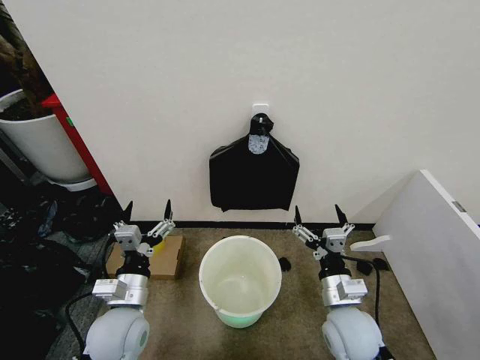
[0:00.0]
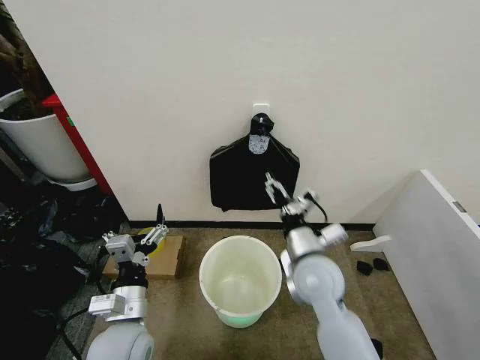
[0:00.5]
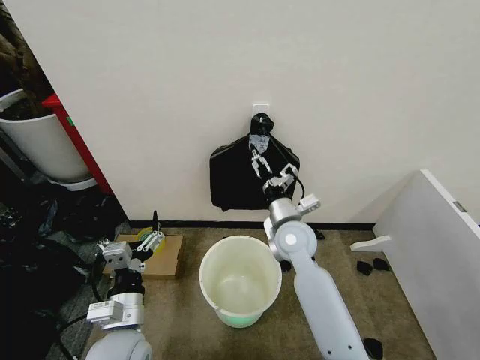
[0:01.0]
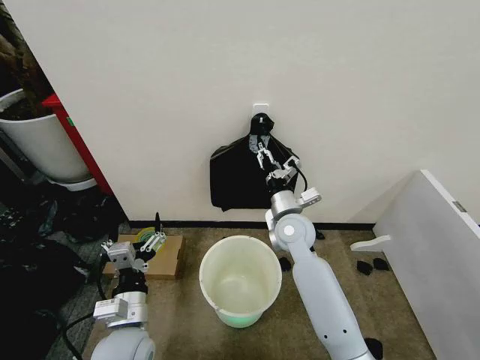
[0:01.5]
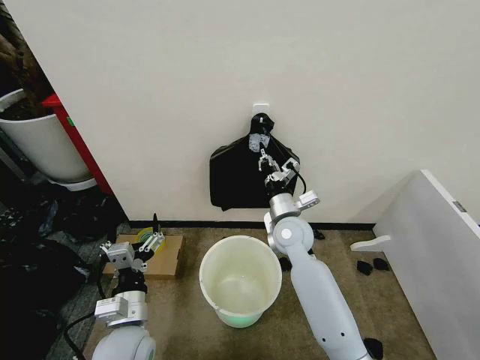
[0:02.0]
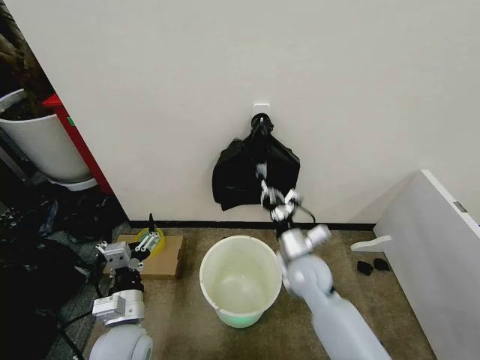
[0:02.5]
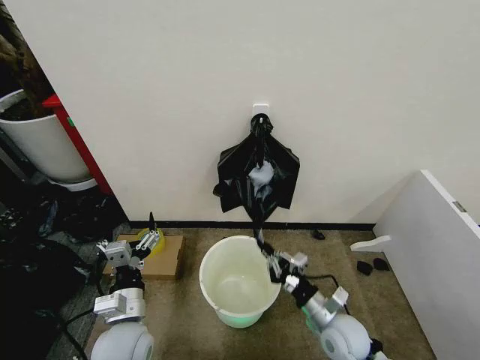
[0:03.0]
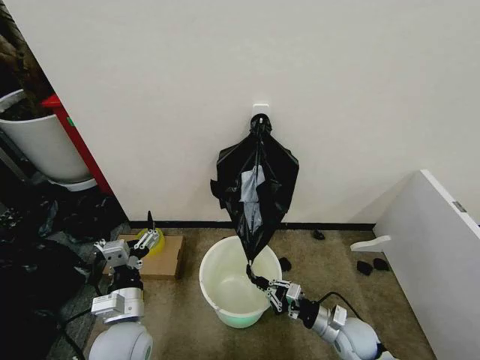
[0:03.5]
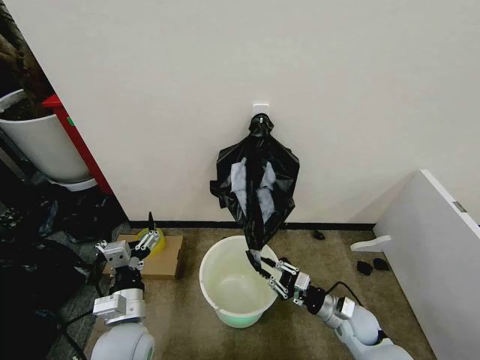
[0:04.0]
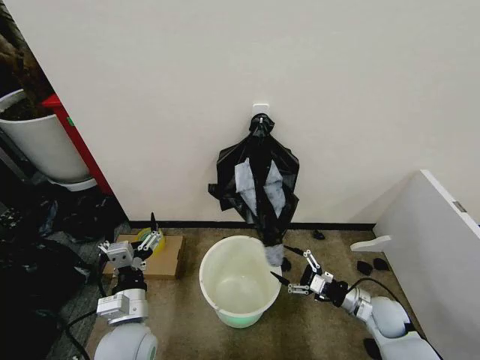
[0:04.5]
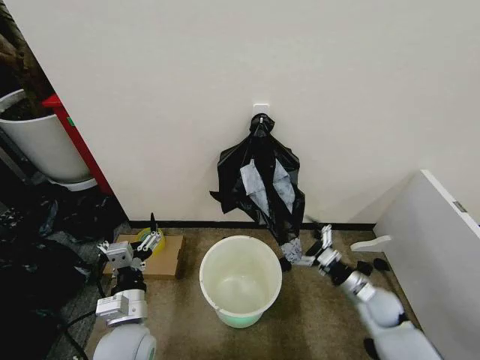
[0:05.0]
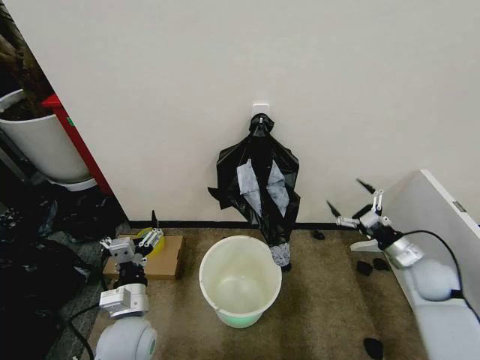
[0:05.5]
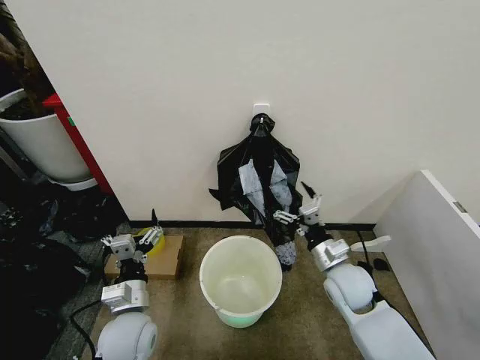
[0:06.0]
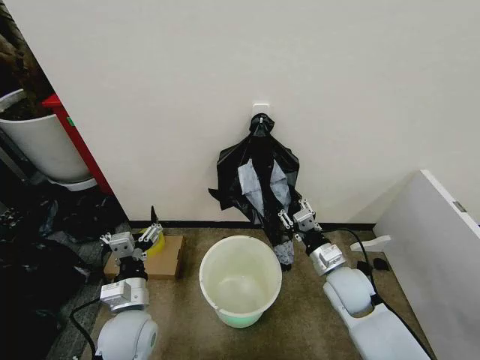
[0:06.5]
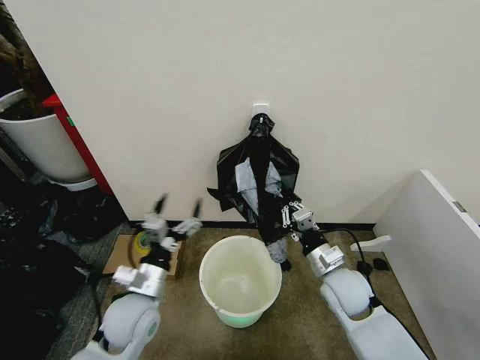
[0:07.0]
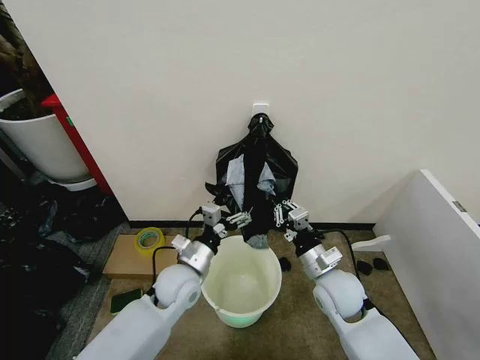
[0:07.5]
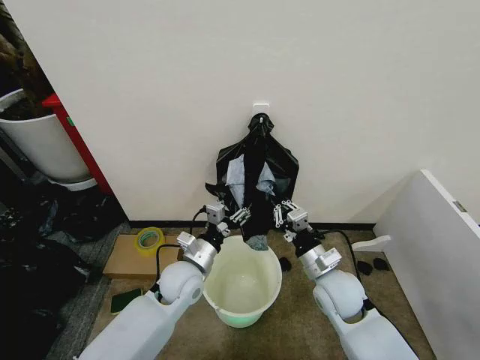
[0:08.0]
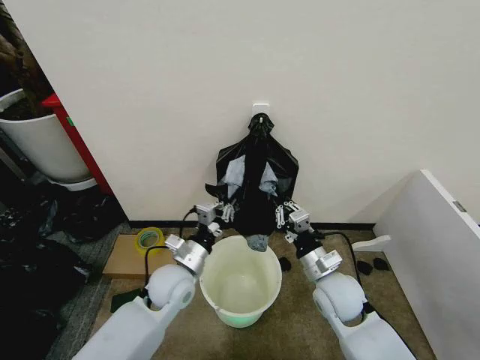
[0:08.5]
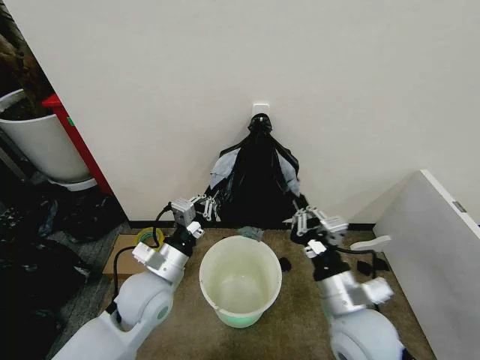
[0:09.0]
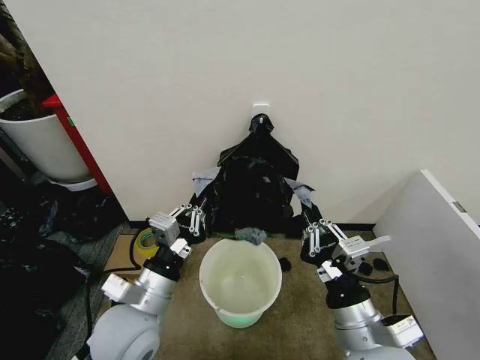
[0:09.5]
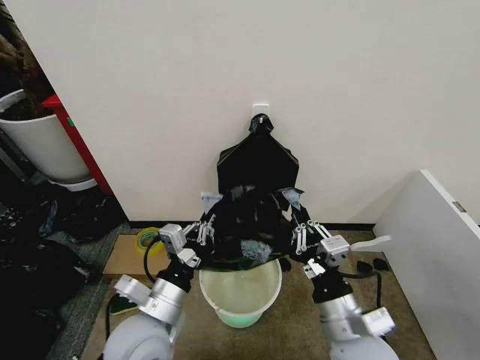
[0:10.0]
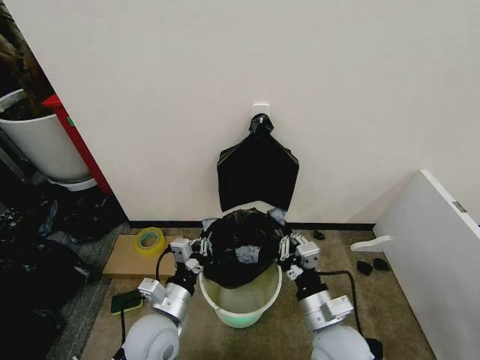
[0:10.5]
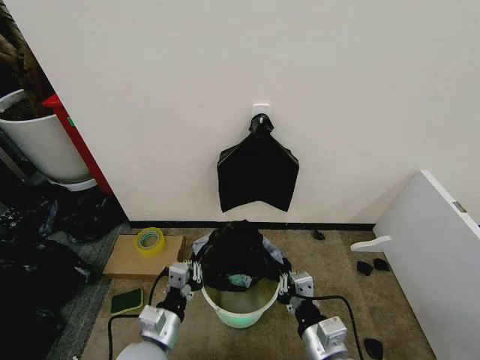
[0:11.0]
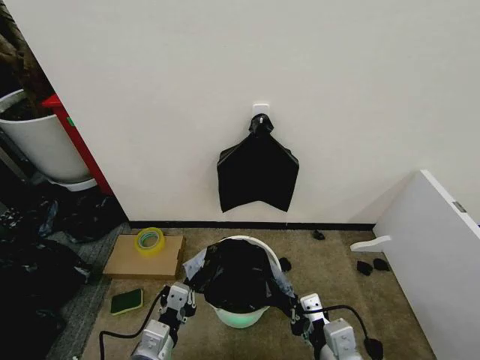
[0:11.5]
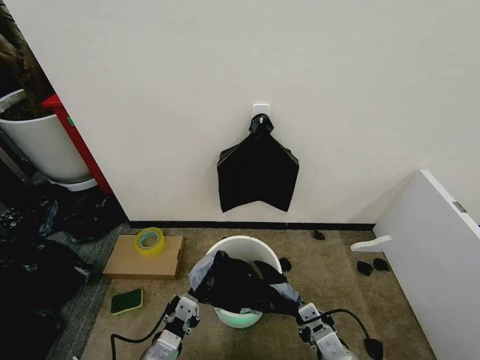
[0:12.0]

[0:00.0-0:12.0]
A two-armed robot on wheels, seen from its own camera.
Task of the whole recording: Place the garbage bag over the trash bin.
0:02.0 to 0:04.0: The right gripper heads downward, to the right and backward, covering roughly 30 cm.
0:04.0 to 0:06.0: The right gripper is displaced upward by about 15 cm, travels to the right and back again, some 15 cm each way, and opens up.
0:06.0 to 0:08.0: The left gripper is displaced forward and to the right by some 15 cm, and closes; the right gripper closes its fingers.
0:08.0 to 0:10.0: Both grippers move backward and upward, some 15 cm. The left gripper closes.
0:10.0 to 0:12.0: The left gripper heads downward and backward, covering about 15 cm. The right gripper goes up and down, approximately 10 cm each way, reversing 2 times.

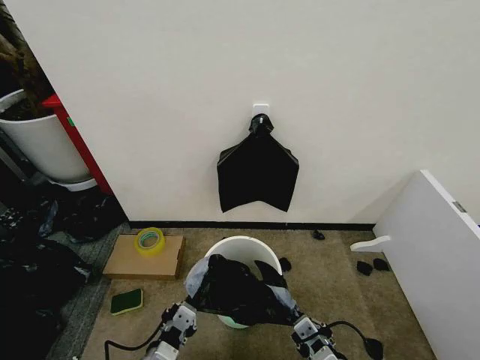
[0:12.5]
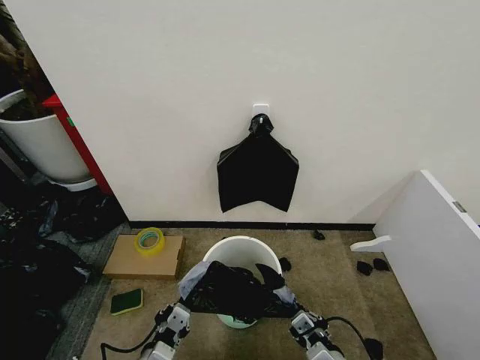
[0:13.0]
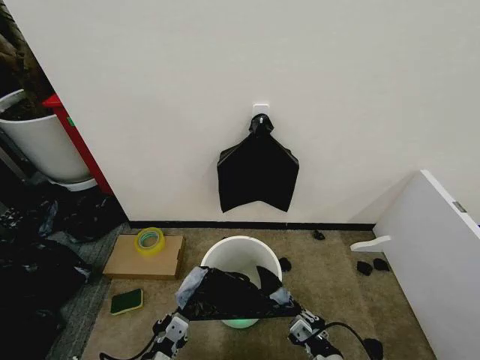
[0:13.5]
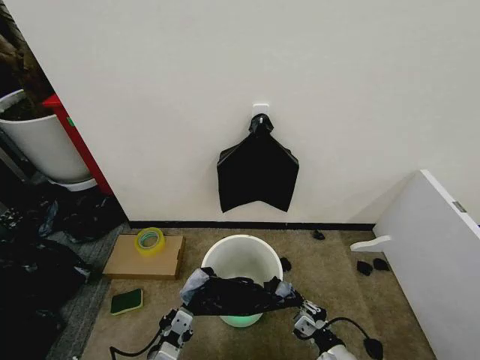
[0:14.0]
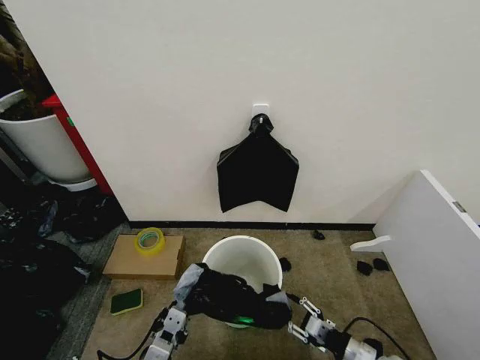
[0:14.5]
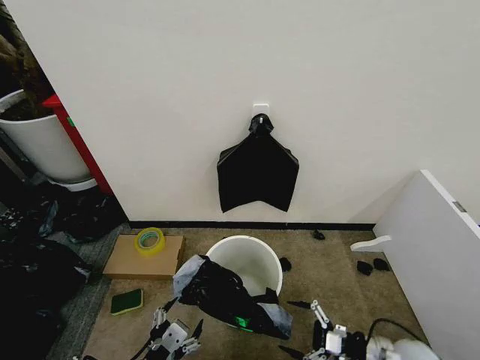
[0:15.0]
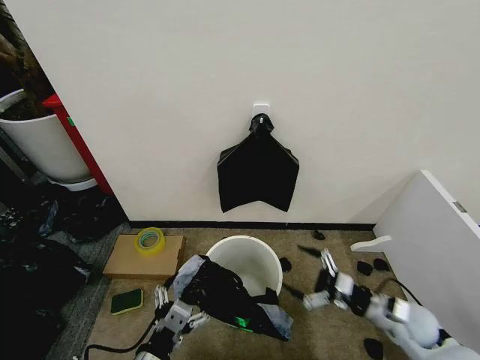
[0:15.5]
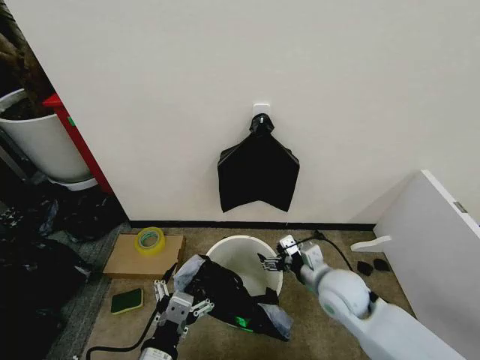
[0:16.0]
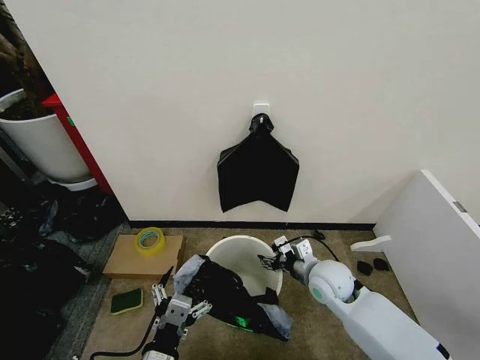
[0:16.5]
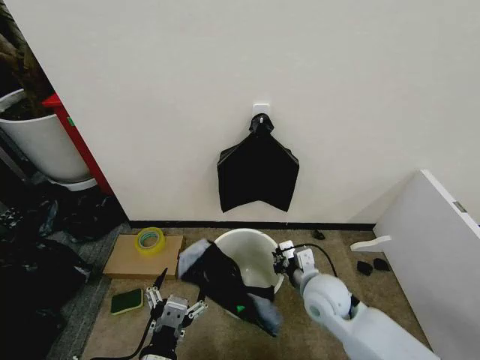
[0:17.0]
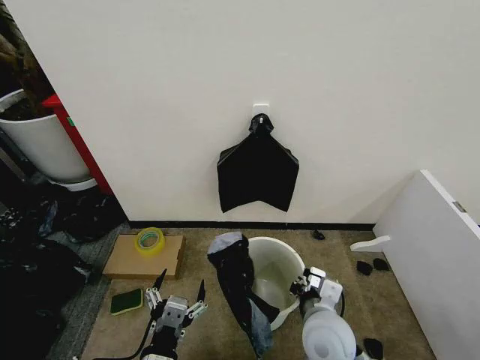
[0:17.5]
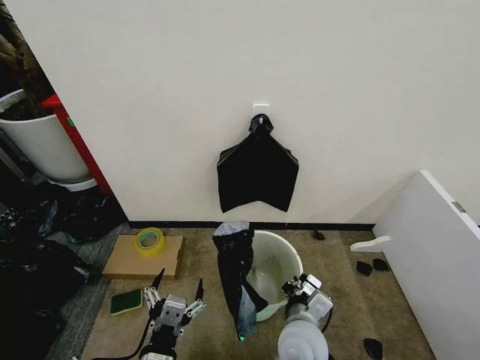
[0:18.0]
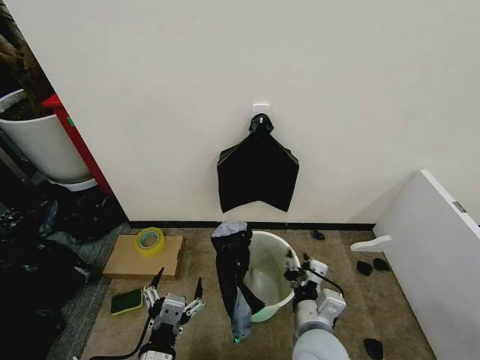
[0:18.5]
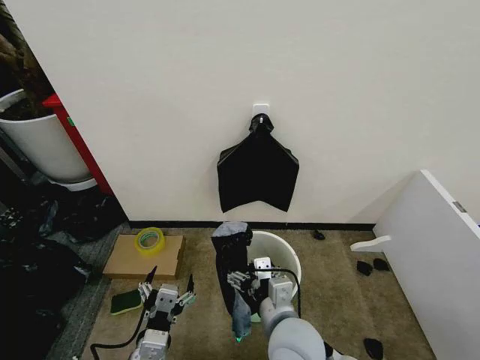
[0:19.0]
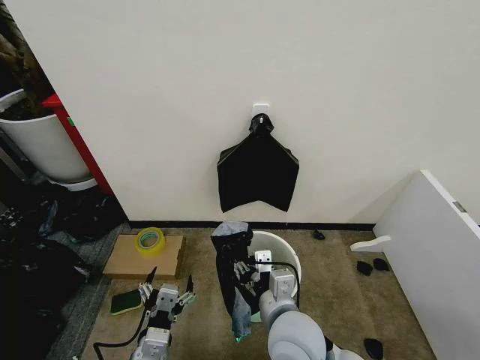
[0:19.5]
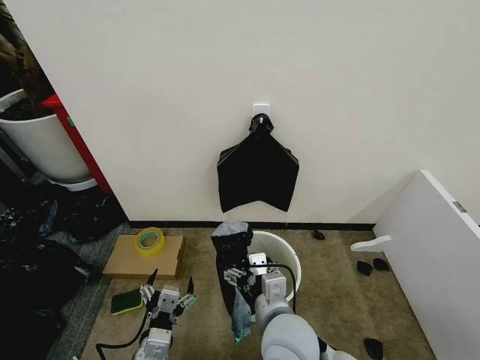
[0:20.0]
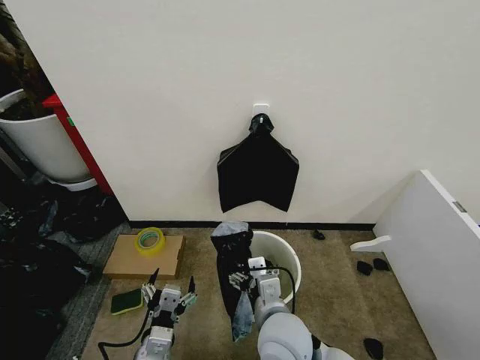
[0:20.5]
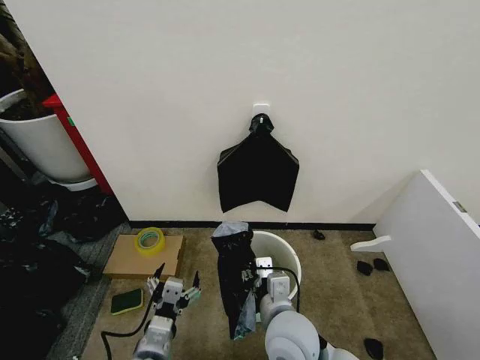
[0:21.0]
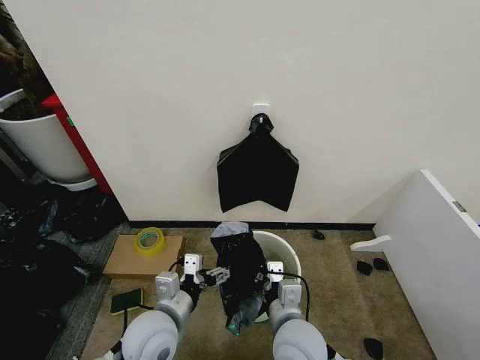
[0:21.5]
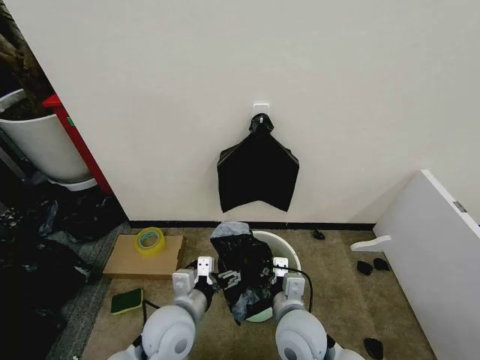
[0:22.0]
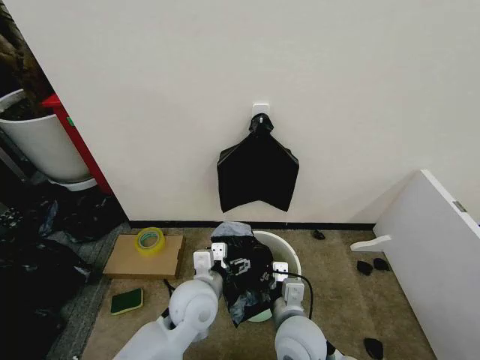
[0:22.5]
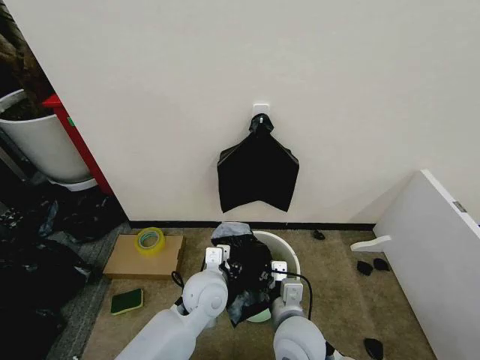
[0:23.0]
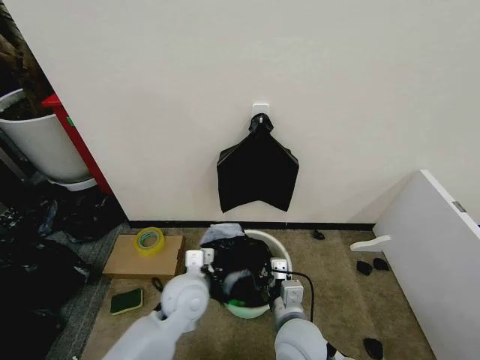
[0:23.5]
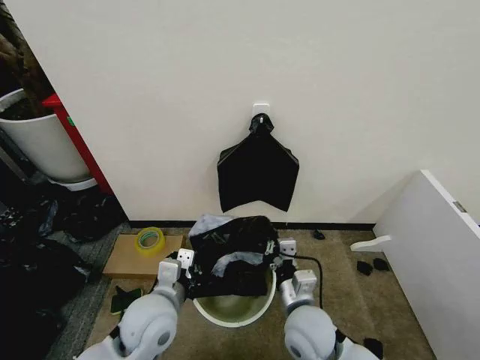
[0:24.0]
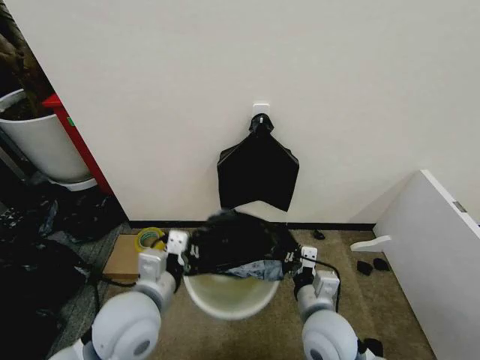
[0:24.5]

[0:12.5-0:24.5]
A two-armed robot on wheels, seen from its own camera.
Task of the whole recording: Place the garbage bag over the trash bin.
0:12.5 to 0:14.5: The right gripper travels to the right, downward and forward by roughly 20 cm, and opens its fingers.
0:14.5 to 0:16.5: The left gripper ends up about 5 cm from where it was, and opens up. Meanwhile the right gripper moves forward, to the left and upward, approximately 25 cm.
0:16.5 to 0:18.5: The right gripper shifts about 15 cm backward and to the left, and closes and opens again.
0:18.5 to 0:20.5: The right gripper moves to the left, about 5 cm, and opens. The left gripper moves about 5 cm.
0:20.5 to 0:22.5: The left gripper shifts about 15 cm forward and to the right. The right gripper moves some 5 cm, and closes its fingers.
0:22.5 to 0:24.5: The left gripper is displaced upward, to the left and backward by about 15 cm, and closes; the right gripper shifts some 5 cm to the right.

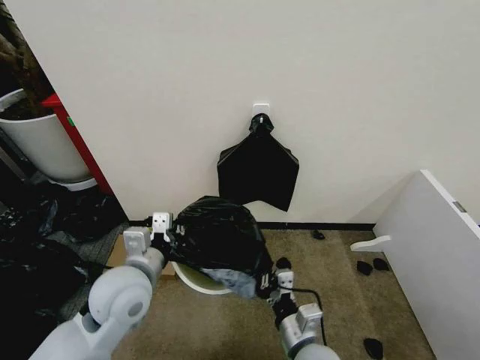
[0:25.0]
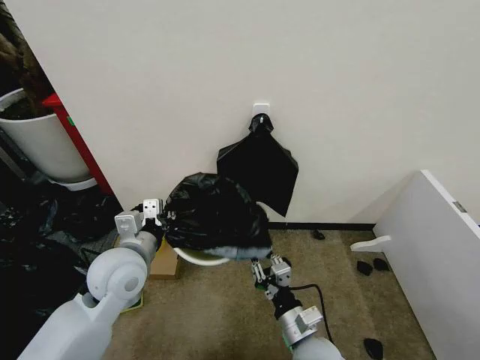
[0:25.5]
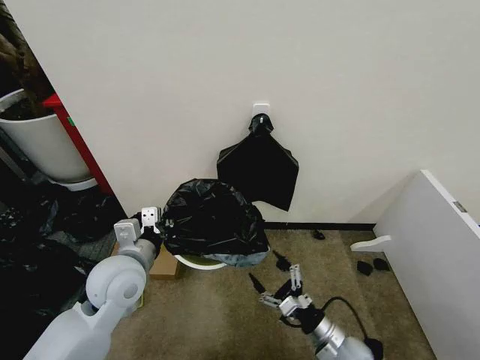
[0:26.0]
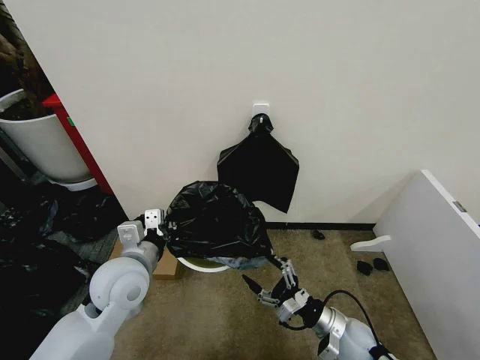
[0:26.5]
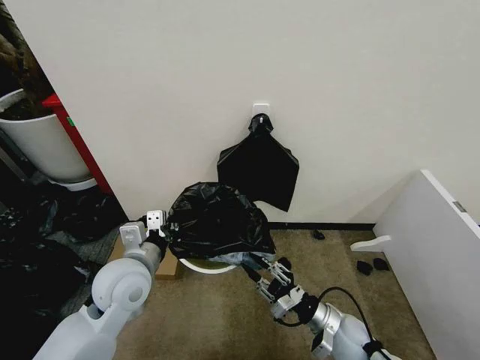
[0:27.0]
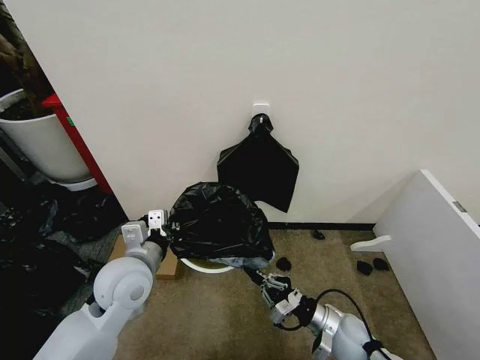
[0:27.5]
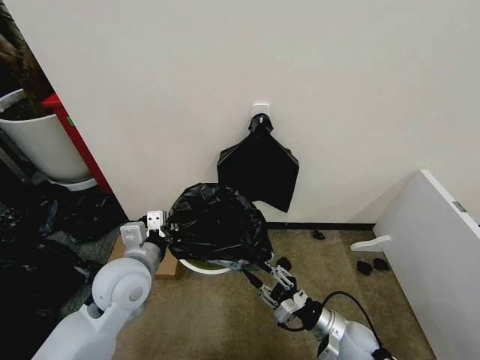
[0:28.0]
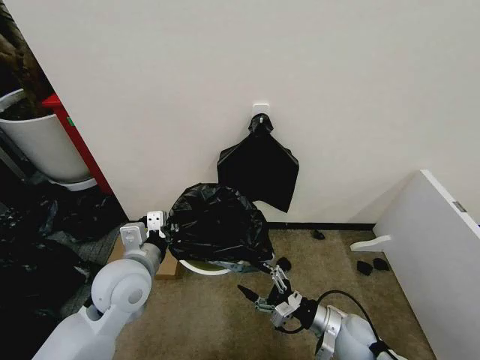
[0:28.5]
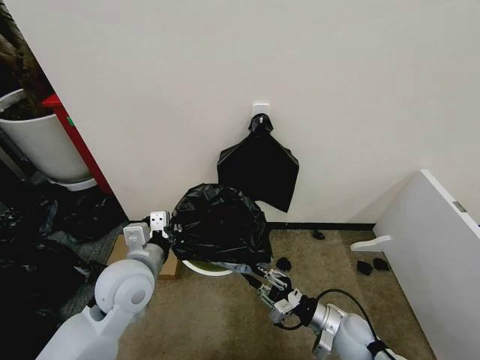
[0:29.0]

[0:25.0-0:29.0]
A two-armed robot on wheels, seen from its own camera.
Task of the whole recording: Place the garbage bag over the trash bin.
0:25.0 to 0:27.0: The right gripper is displaced to the right, forward and downward by some 15 cm, and opens and closes again.
0:27.0 to 0:29.0: The right gripper opens, then closes once more.
